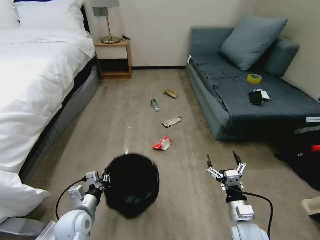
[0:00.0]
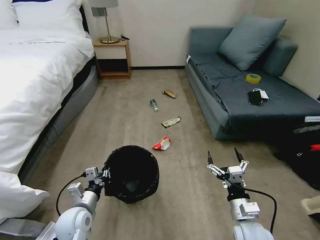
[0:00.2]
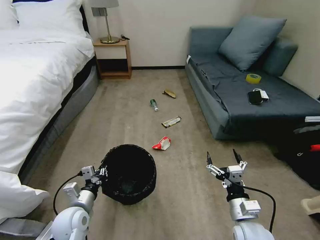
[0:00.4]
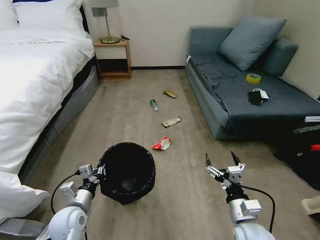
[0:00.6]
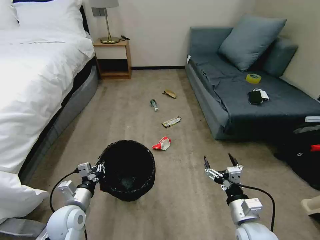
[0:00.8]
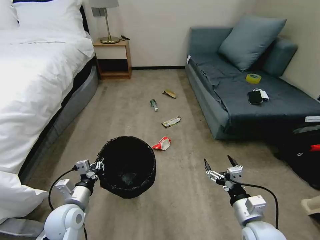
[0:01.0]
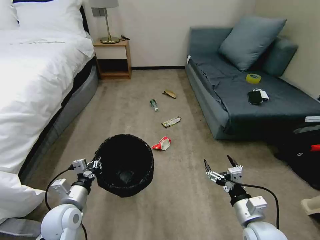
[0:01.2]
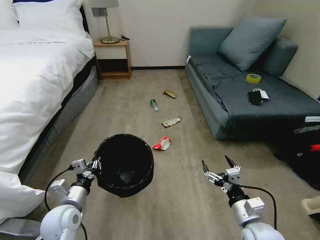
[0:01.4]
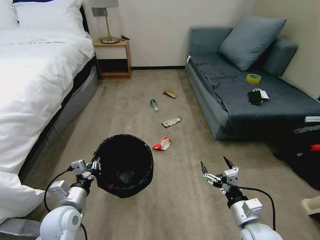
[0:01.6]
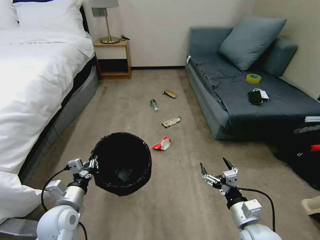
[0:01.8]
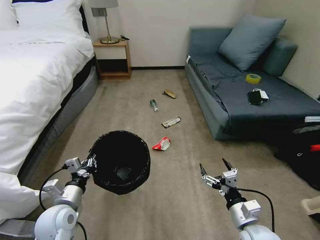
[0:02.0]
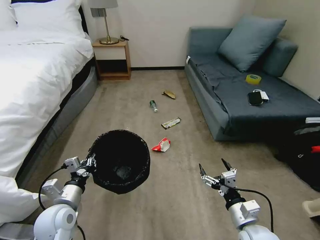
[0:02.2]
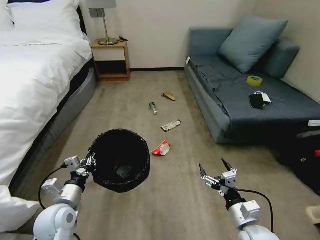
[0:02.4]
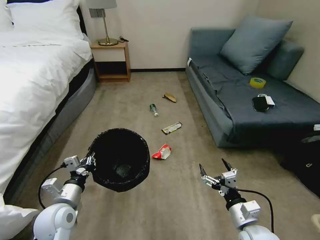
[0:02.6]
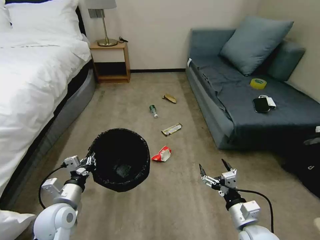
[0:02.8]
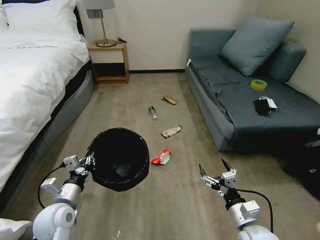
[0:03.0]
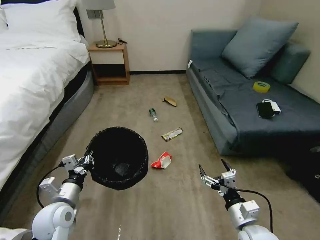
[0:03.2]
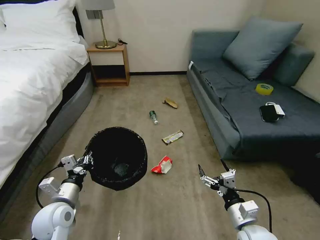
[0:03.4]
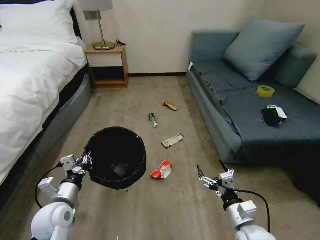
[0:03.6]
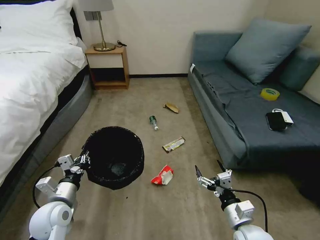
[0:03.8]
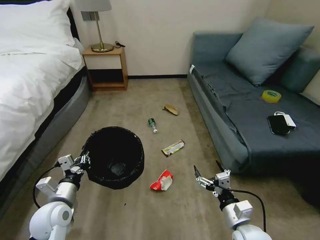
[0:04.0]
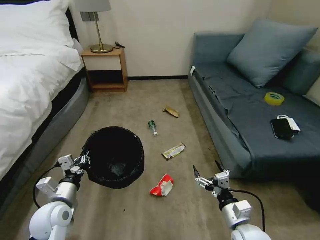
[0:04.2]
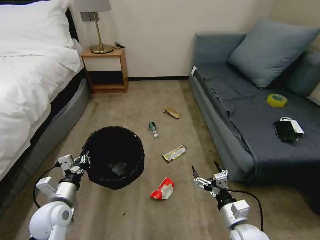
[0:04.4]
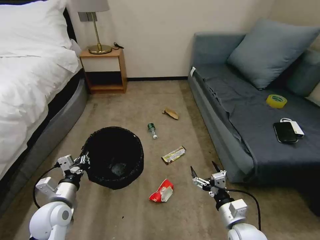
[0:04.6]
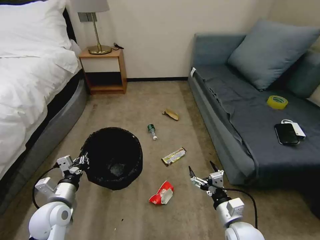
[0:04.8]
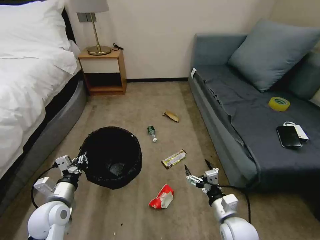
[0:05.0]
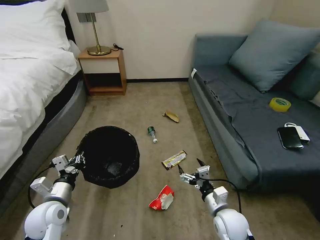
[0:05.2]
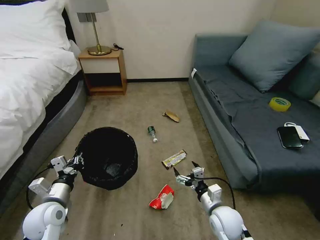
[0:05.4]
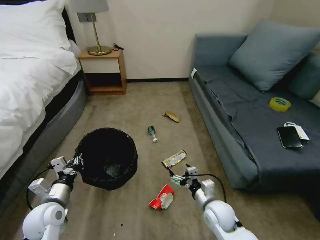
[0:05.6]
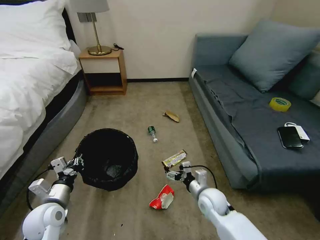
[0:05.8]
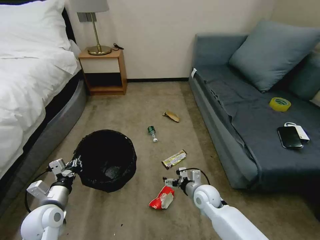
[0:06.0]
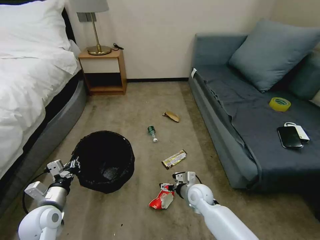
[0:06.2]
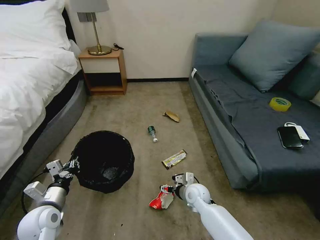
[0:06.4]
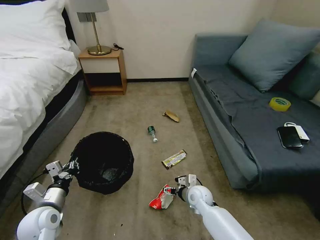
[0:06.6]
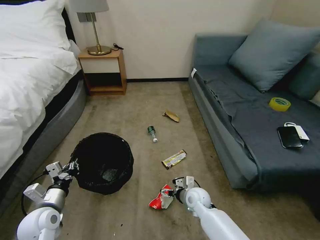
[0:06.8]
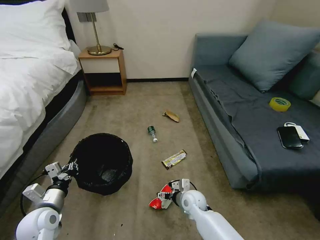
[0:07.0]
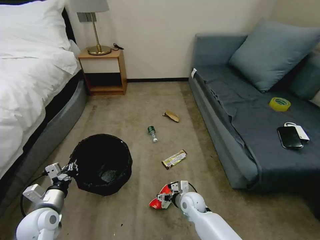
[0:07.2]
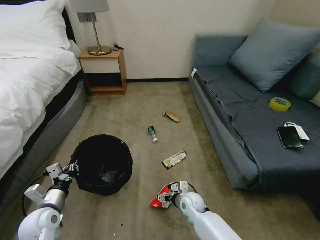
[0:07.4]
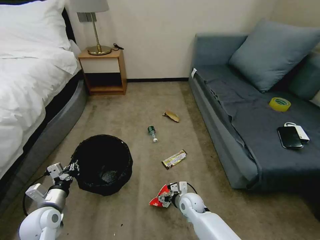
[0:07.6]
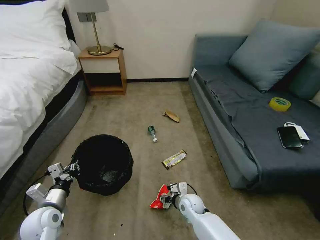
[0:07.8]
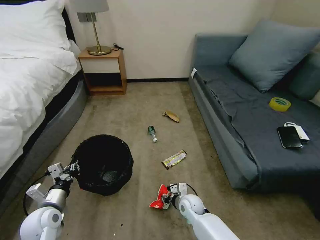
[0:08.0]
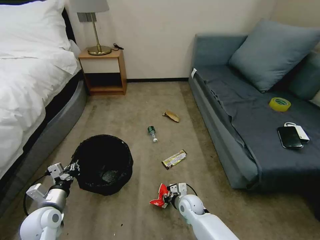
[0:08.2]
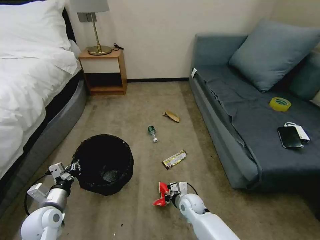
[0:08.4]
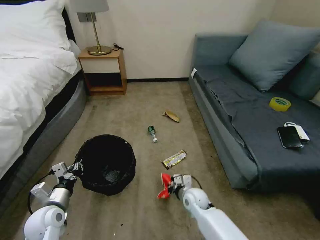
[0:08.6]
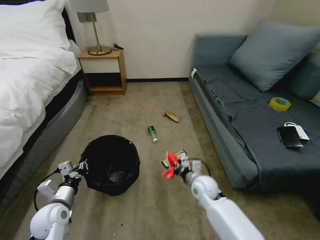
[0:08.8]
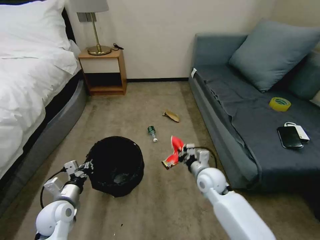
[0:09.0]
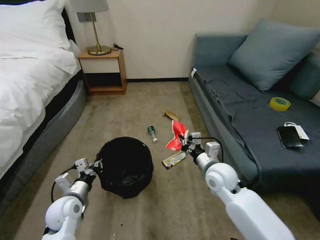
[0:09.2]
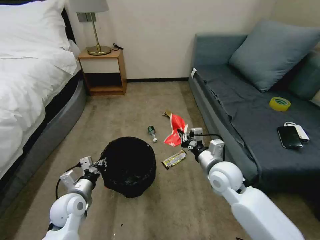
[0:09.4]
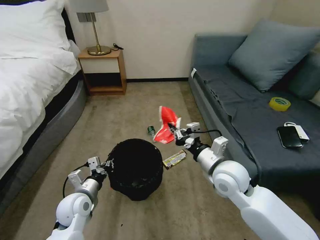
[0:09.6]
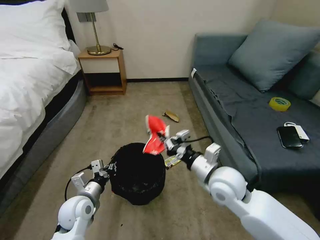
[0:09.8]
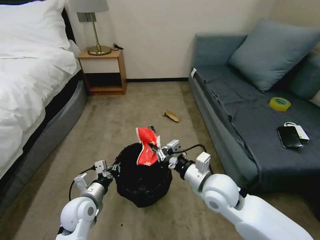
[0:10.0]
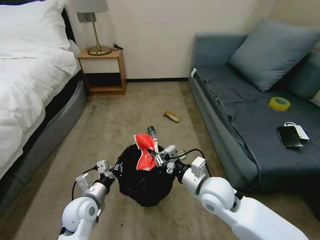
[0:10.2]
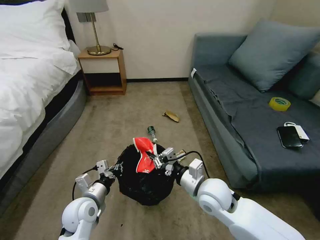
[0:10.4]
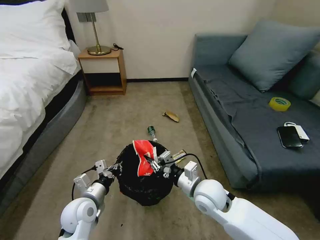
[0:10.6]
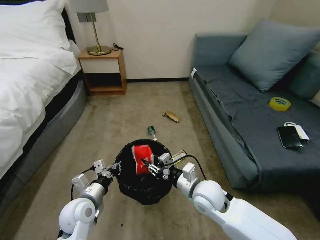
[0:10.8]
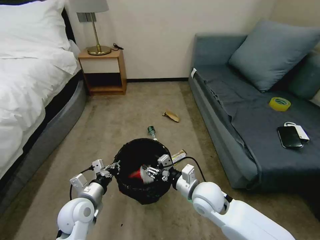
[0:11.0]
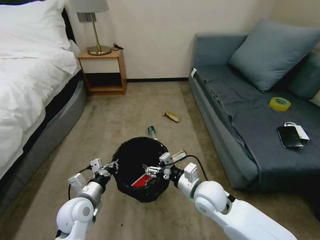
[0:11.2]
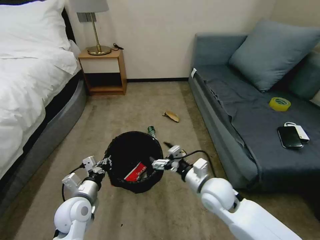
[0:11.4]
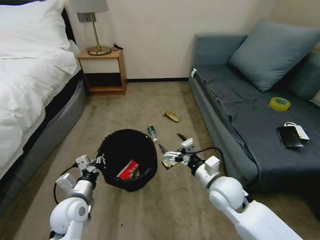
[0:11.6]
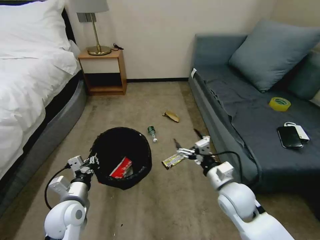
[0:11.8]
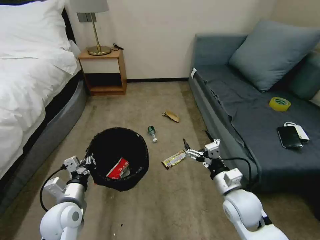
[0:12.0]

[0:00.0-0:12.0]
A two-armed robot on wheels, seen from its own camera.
Task of the whole recording: Pick up the trash bin, then pick up the garbage on the floor and place it into the trash bin.
0:04.4 to 0:06.0: The right gripper travels forward and to the left by about 15 cm.
0:06.0 to 0:07.6: The right gripper shifts approximately 5 cm downward.
0:07.6 to 0:09.0: The right gripper heads upward, covering approximately 15 cm, and closes its fingers.
0:09.0 to 0:10.4: The right gripper is displaced backward and upward by approximately 10 cm, while the left gripper goes about 10 cm to the right.
0:10.4 to 0:12.0: The left gripper ends up roughly 5 cm from where it was; the right gripper is displaced to the right by some 10 cm, and opens up.

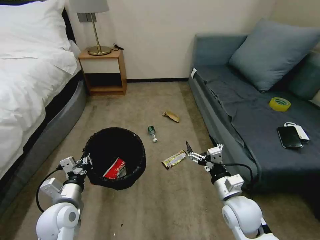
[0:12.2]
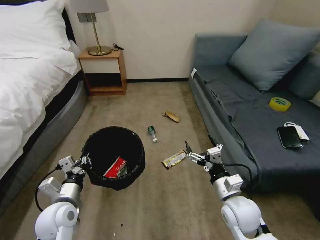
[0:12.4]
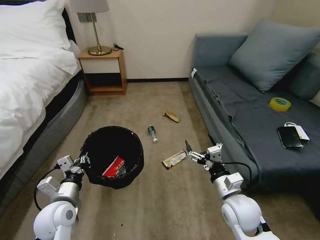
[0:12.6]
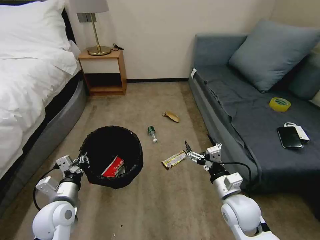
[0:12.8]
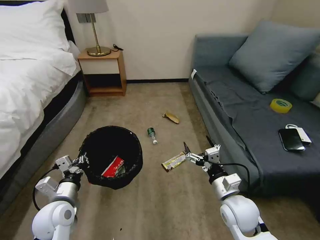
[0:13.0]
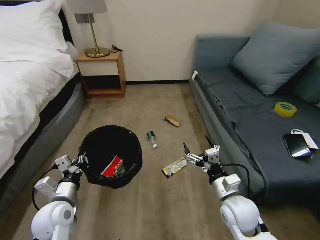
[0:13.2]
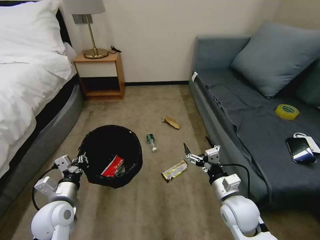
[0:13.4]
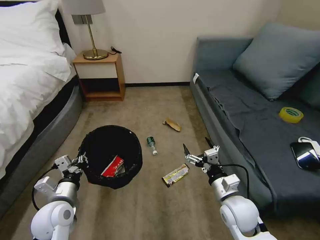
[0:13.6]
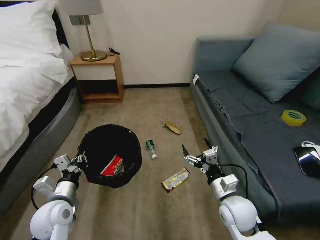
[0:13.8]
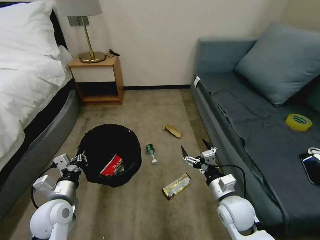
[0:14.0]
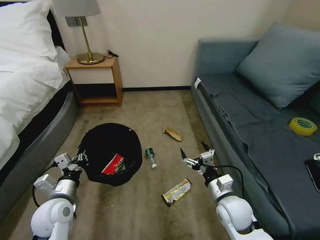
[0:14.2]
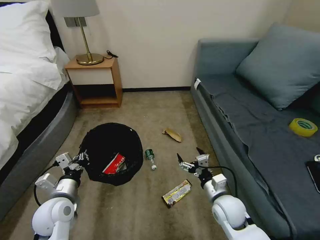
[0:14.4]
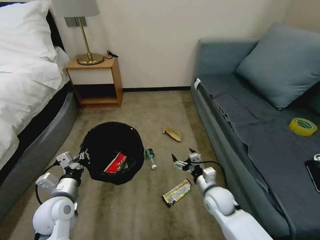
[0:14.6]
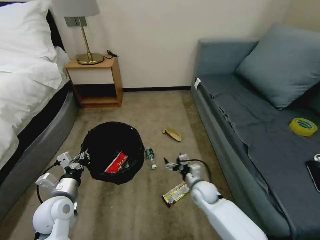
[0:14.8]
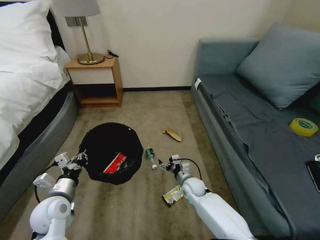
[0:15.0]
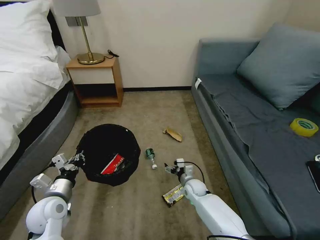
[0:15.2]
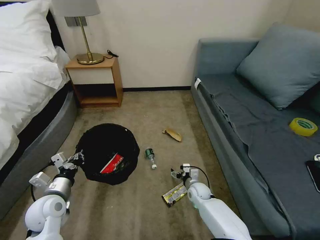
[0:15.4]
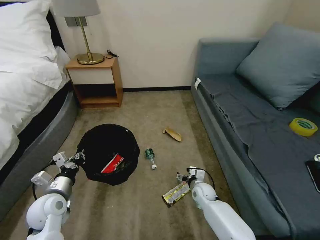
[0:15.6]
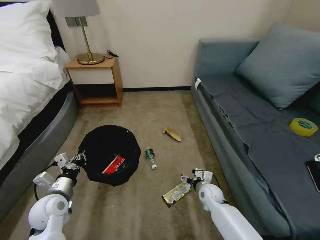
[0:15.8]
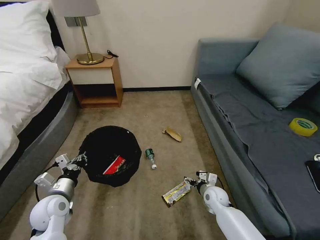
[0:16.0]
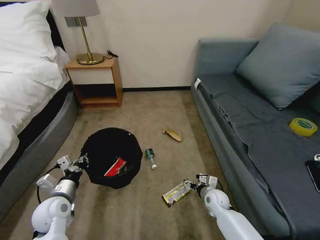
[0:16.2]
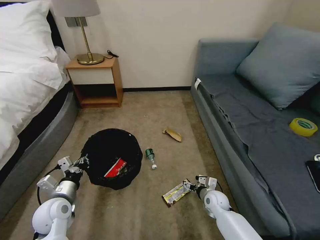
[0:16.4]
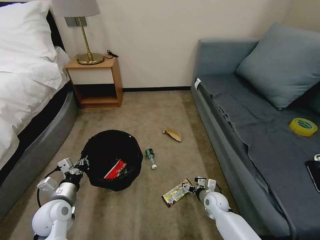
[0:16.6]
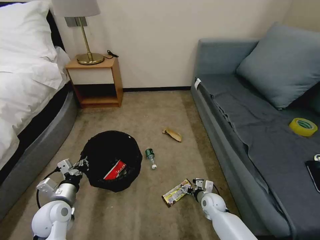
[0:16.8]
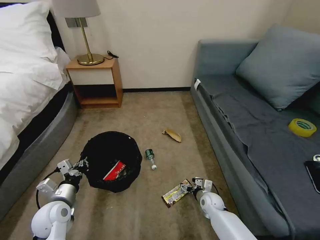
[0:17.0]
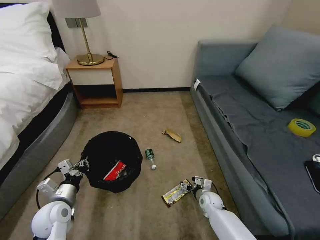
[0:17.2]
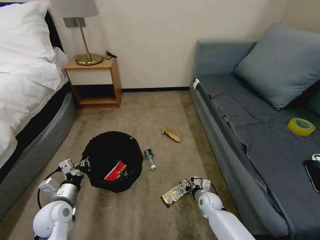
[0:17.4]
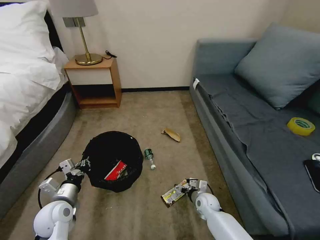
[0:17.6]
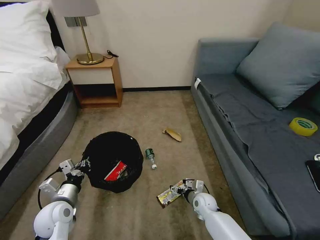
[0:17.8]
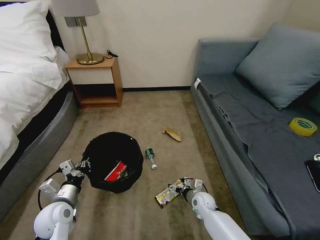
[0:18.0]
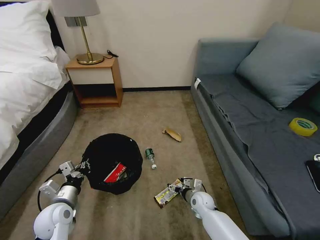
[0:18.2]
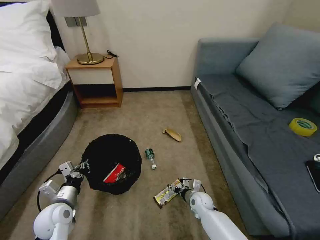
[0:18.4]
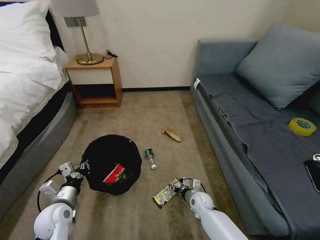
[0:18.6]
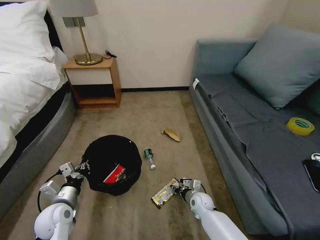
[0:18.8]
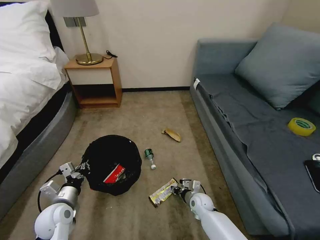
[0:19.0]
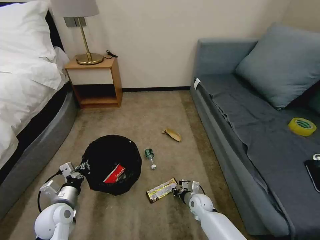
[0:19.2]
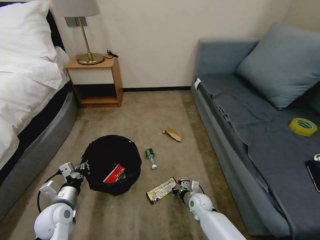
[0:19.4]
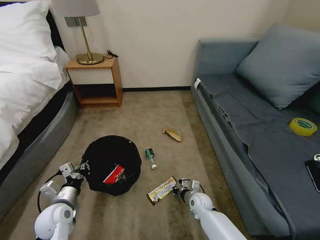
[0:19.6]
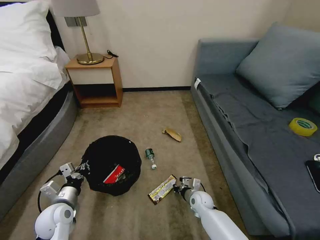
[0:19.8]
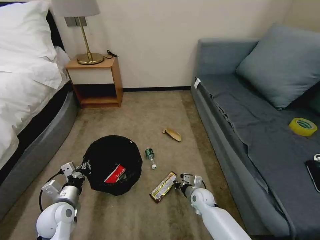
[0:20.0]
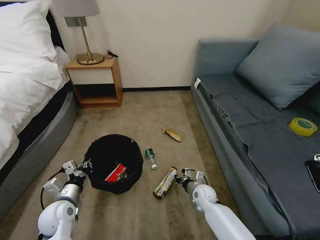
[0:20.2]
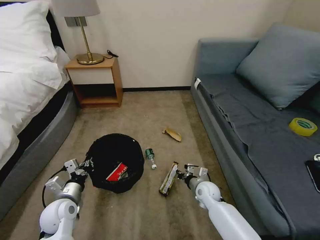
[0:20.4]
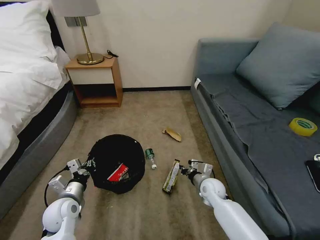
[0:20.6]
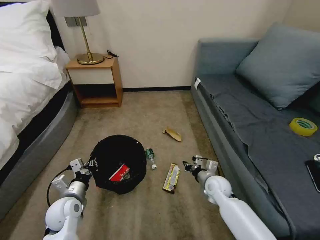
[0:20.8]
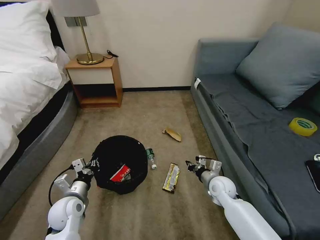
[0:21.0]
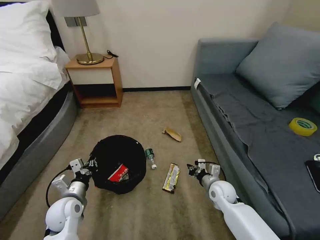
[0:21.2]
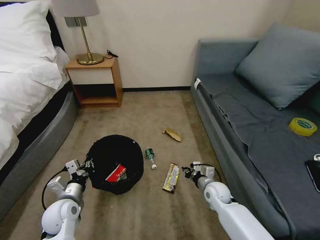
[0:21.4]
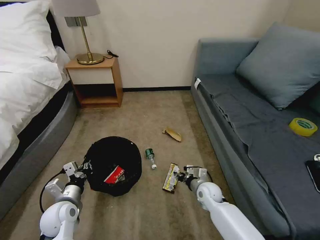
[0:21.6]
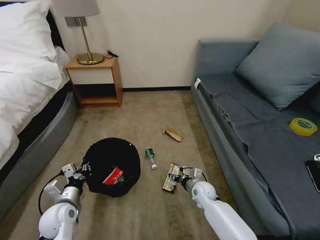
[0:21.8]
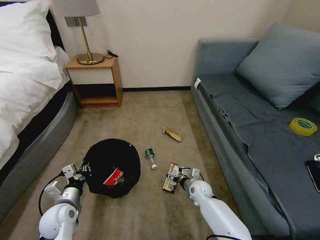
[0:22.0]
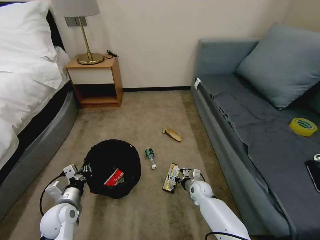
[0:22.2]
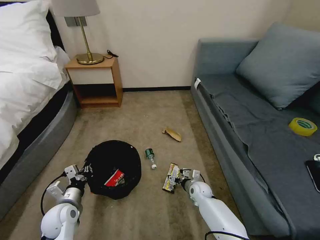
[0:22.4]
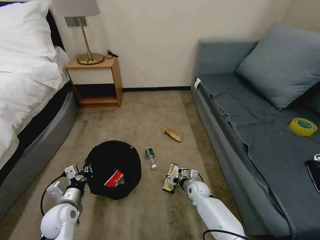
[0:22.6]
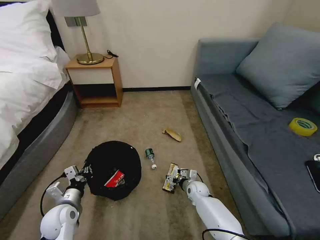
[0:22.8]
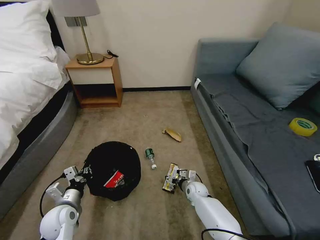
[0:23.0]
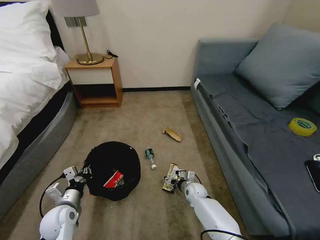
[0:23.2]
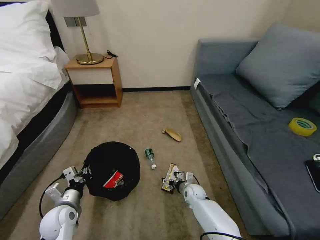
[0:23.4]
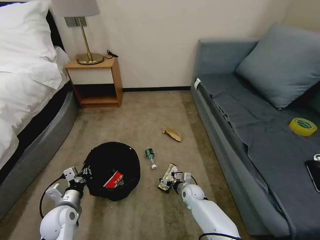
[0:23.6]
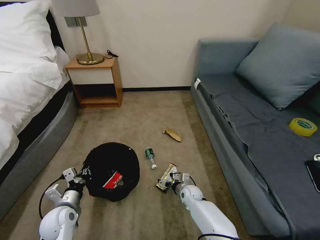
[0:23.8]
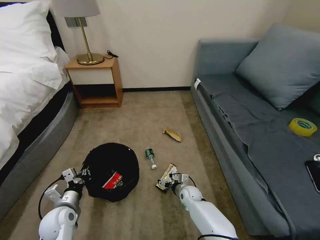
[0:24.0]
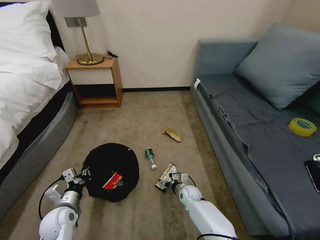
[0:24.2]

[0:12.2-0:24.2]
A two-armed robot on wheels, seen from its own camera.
Task of the whole recording: Pick up the trash bin, then pick up the garbage on the floor and place it into the trash bin.
0:13.8 to 0:15.2: The right gripper heads downward and forward, covering about 25 cm.
0:15.2 to 0:16.6: The right gripper goes roughly 10 cm to the right and backward.
0:16.6 to 0:18.2: The right gripper moves to the left, approximately 5 cm.
0:18.2 to 0:19.8: The right gripper closes its fingers.
0:19.8 to 0:21.2: The right gripper travels upward and to the right by some 10 cm.
0:21.2 to 0:22.6: The right gripper travels downward and to the left by about 10 cm, and opens up.
0:22.6 to 0:24.2: The grippers make only small movements.
